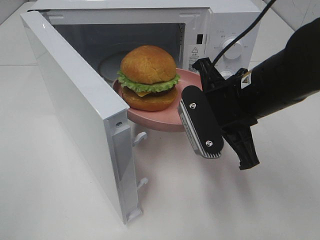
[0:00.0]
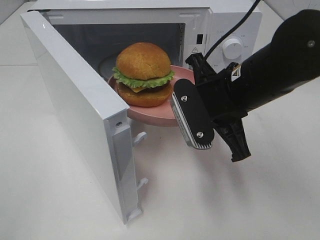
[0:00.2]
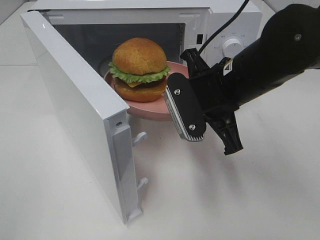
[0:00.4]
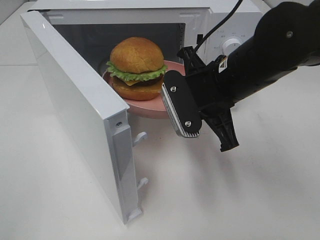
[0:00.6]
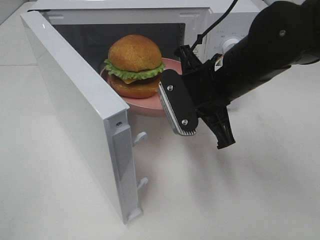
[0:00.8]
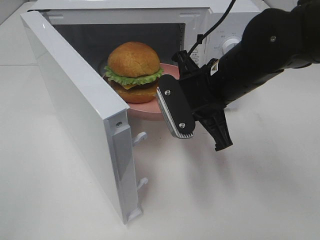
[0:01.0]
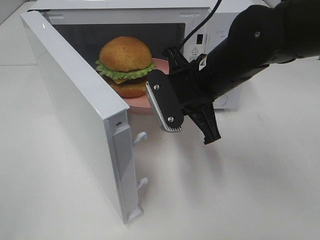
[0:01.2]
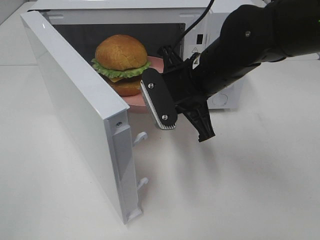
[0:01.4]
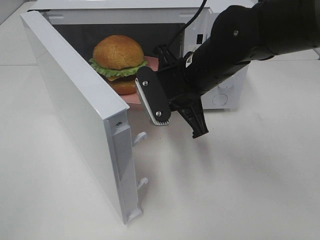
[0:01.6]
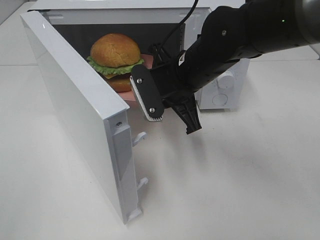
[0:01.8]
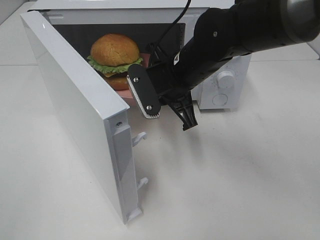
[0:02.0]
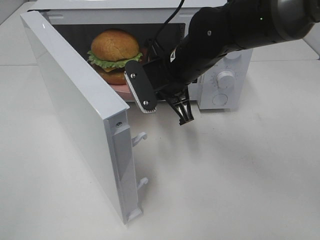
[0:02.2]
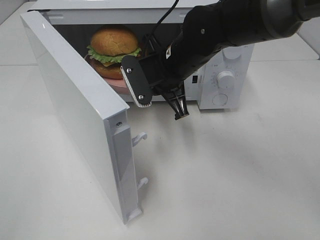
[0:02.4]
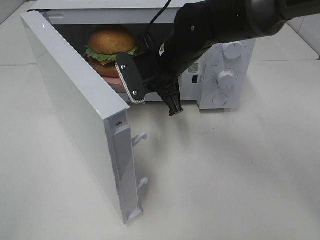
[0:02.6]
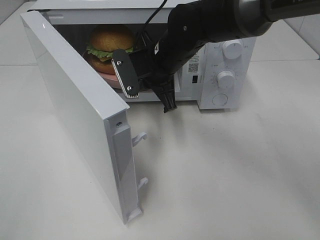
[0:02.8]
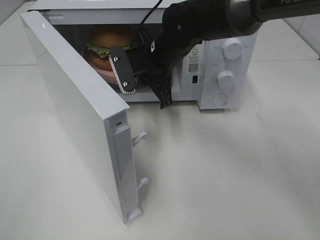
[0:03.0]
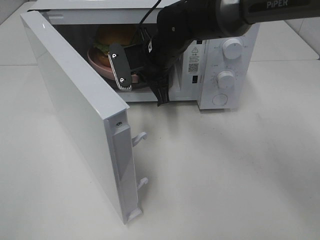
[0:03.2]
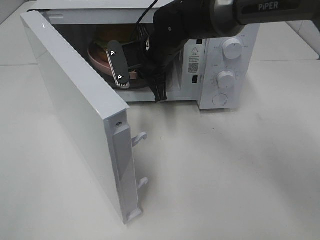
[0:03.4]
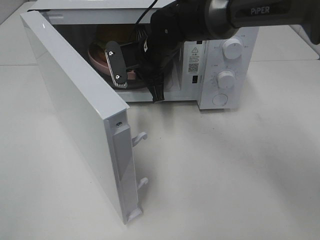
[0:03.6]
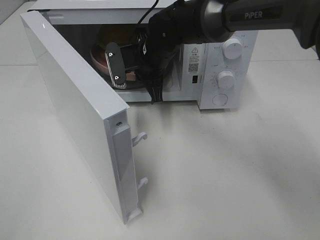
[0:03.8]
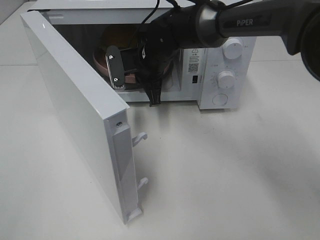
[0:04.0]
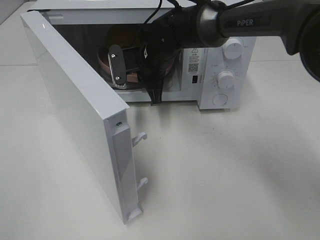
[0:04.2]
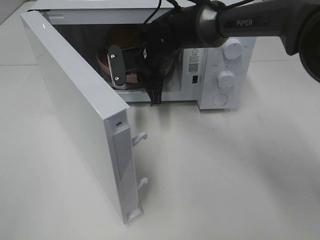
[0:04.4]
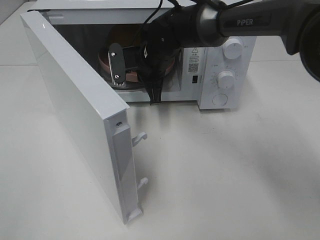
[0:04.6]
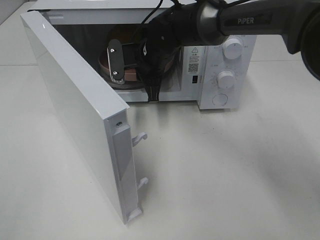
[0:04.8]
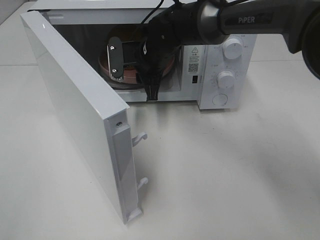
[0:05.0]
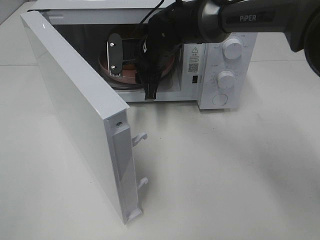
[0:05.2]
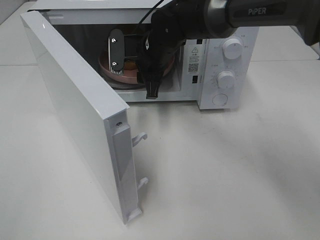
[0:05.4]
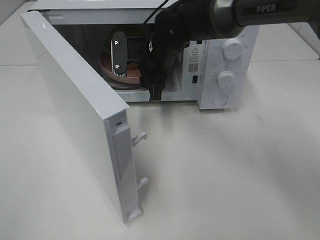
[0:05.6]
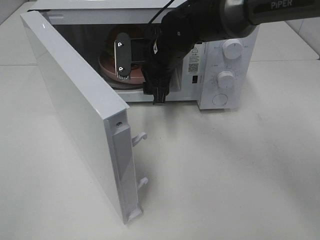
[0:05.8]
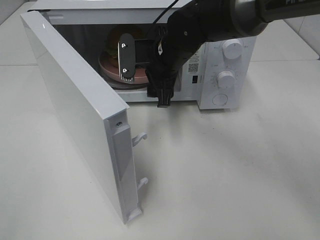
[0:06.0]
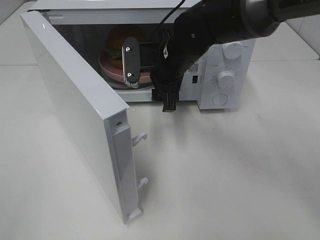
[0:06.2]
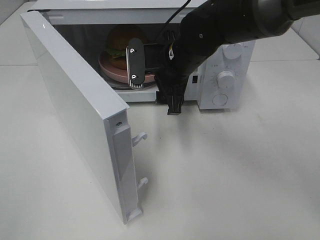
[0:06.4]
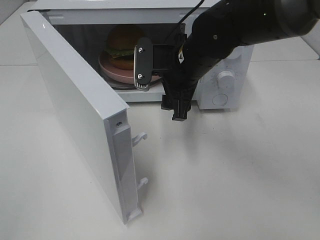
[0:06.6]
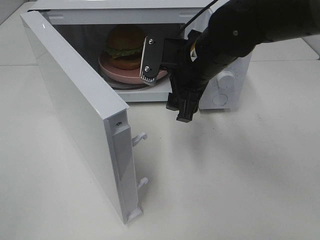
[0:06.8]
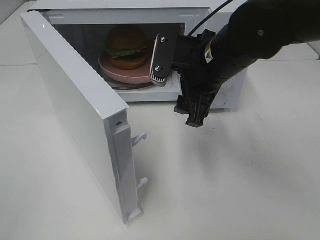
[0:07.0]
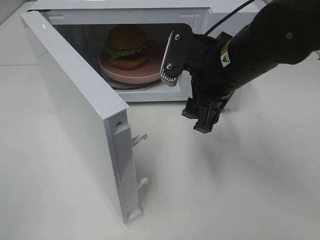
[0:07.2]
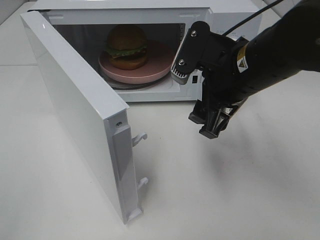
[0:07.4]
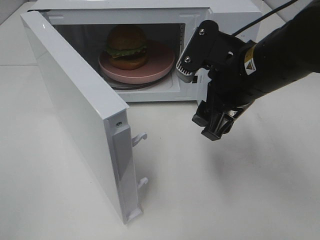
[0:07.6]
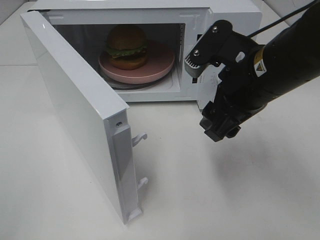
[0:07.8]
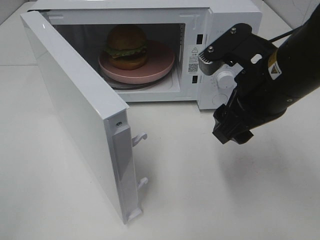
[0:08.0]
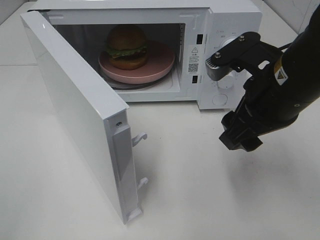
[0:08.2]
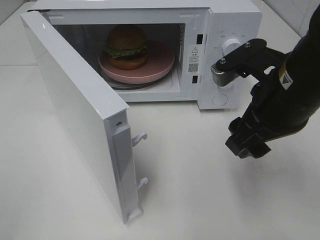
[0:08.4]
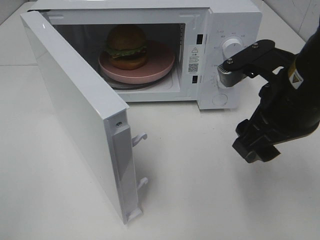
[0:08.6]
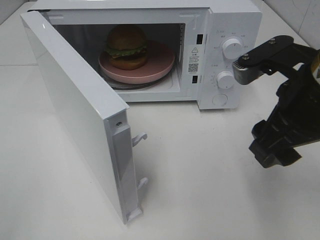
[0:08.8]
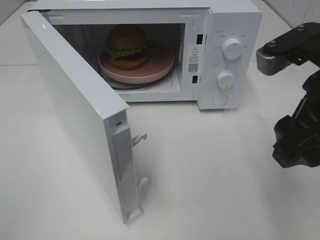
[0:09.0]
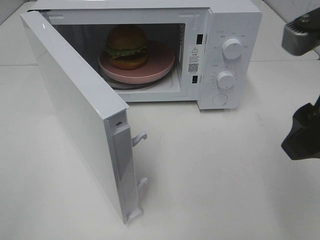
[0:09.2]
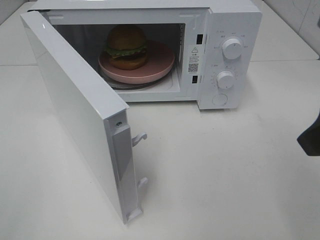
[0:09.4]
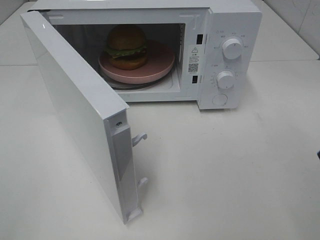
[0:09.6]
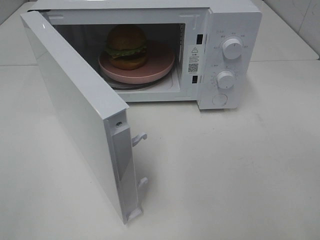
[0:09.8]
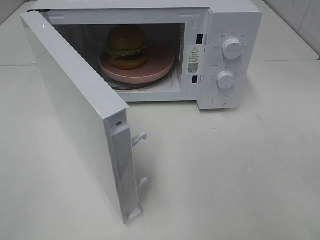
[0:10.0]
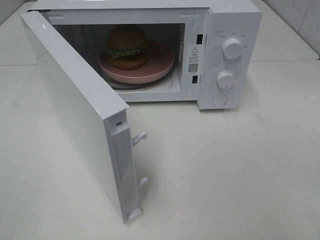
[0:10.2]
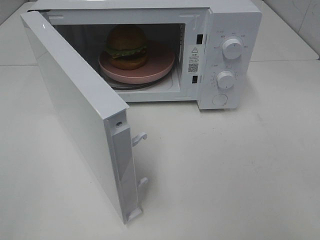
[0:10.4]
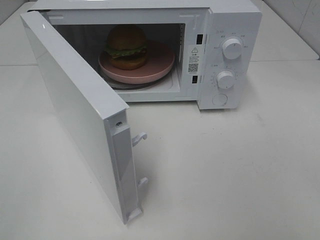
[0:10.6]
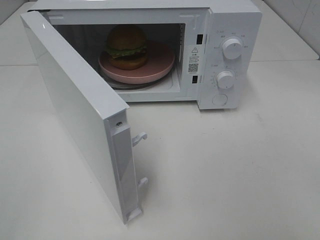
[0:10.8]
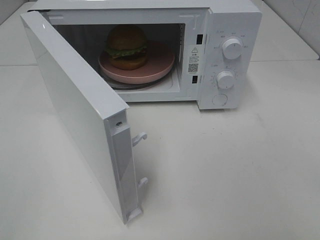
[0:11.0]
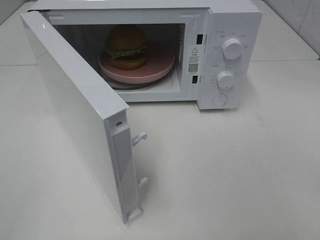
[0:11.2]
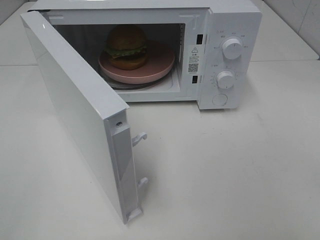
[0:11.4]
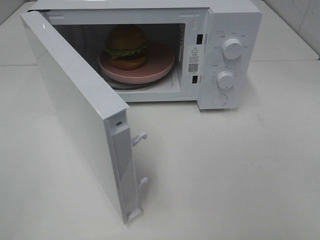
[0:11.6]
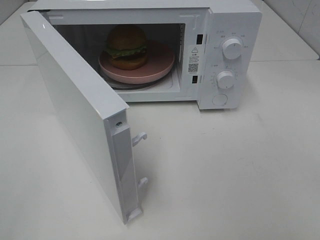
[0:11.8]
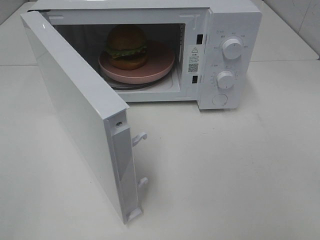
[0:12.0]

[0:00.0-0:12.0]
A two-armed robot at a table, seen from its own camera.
Task of the whole recording: Heat the burger.
Step, 0:00.0 to 0:04.6: Right hand: place the plate in the microwave.
0:00.0 to 0:01.6: The right gripper moves forward and to the left, some 10 cm.
0:01.6 to 0:03.0: The right gripper moves forward, roughly 10 cm.
0:03.0 to 0:04.4: The right gripper moves roughly 5 cm.
0:04.4 to 0:06.0: The right gripper moves some 5 cm, and opens its fingers.
0:06.0 to 0:07.6: The right gripper goes approximately 15 cm backward and to the right.
0:07.6 to 0:09.0: The right gripper shifts approximately 10 cm backward, to the right and upward.
0:09.0 to 0:10.4: The right gripper heads backward and to the right, covering roughly 15 cm.

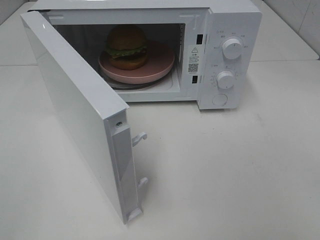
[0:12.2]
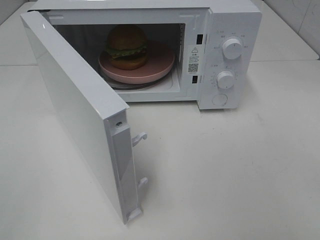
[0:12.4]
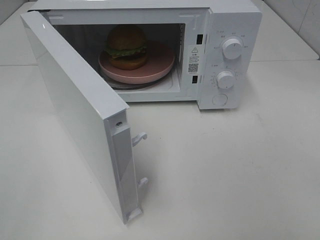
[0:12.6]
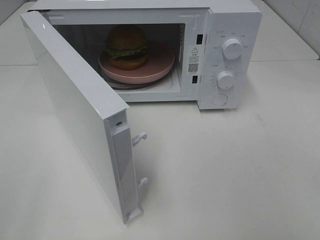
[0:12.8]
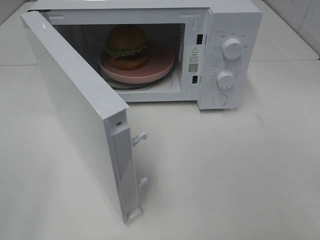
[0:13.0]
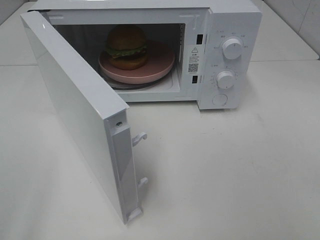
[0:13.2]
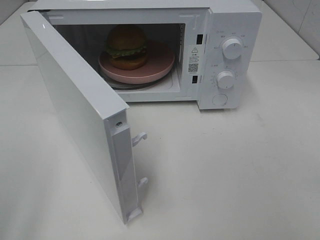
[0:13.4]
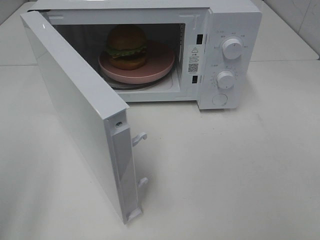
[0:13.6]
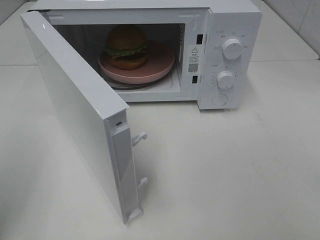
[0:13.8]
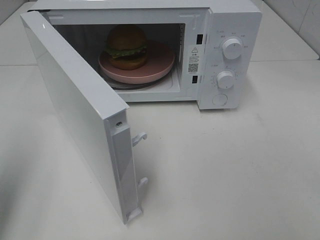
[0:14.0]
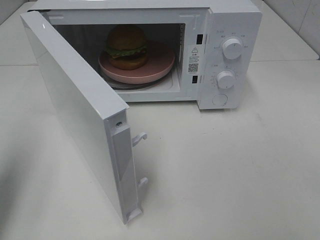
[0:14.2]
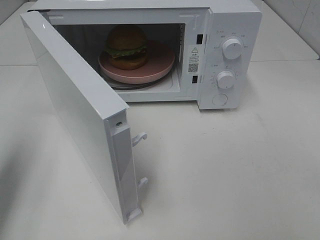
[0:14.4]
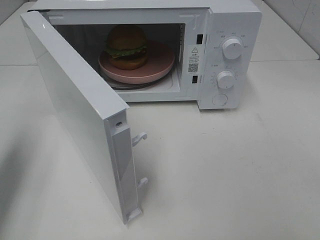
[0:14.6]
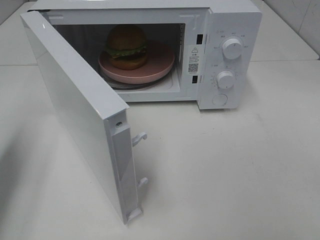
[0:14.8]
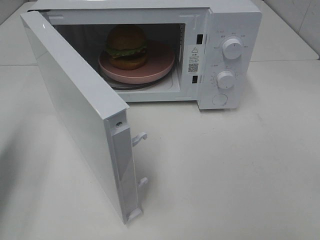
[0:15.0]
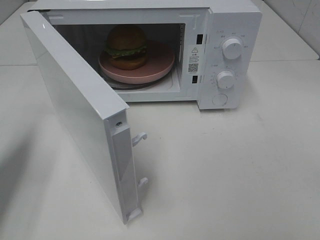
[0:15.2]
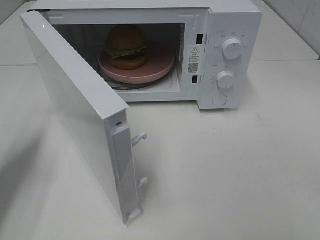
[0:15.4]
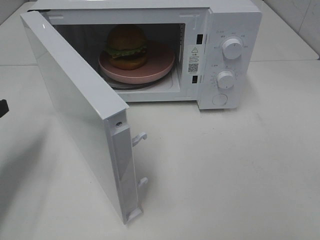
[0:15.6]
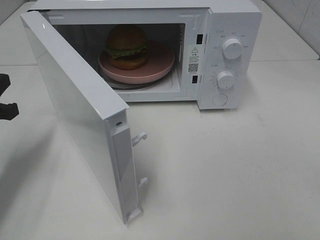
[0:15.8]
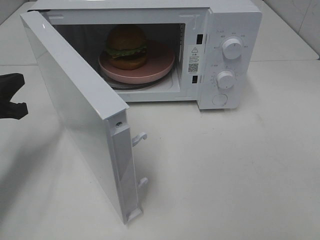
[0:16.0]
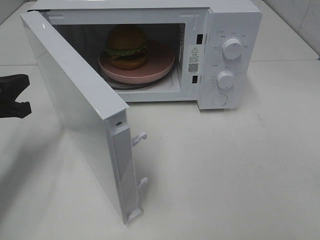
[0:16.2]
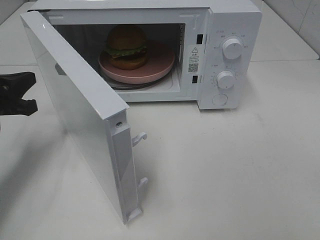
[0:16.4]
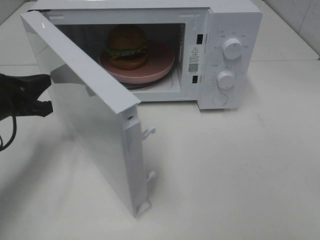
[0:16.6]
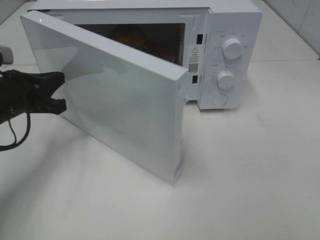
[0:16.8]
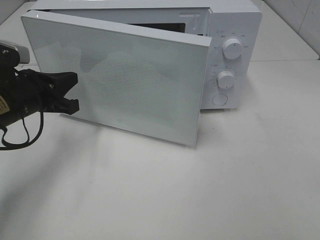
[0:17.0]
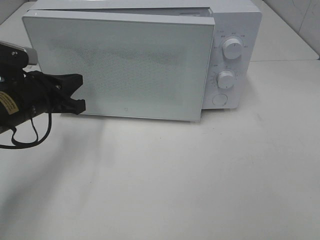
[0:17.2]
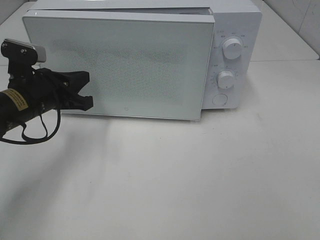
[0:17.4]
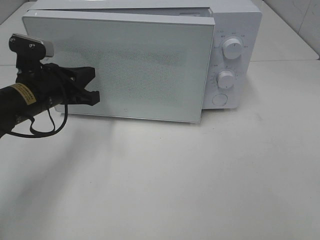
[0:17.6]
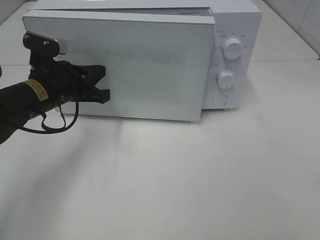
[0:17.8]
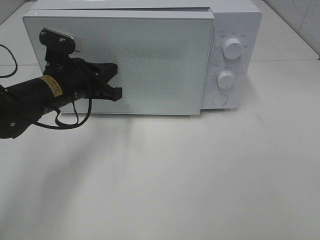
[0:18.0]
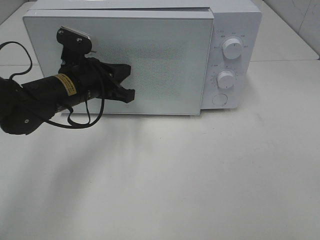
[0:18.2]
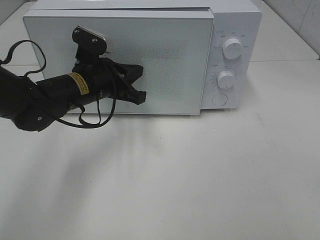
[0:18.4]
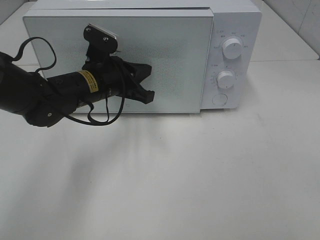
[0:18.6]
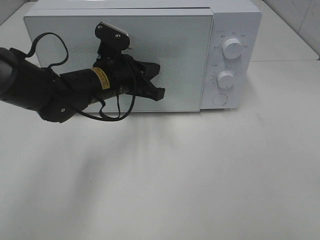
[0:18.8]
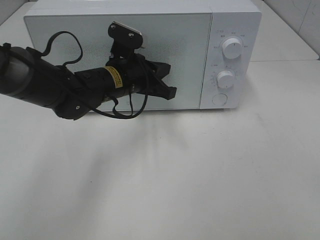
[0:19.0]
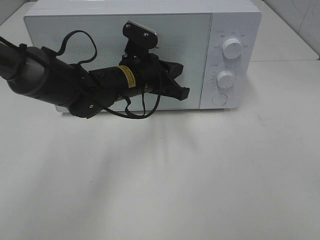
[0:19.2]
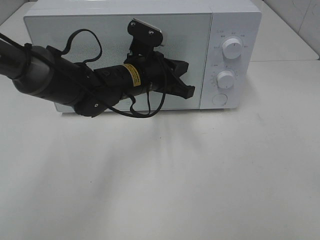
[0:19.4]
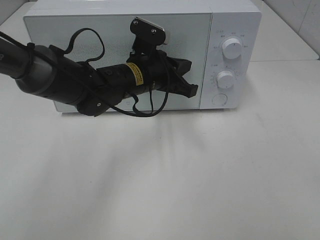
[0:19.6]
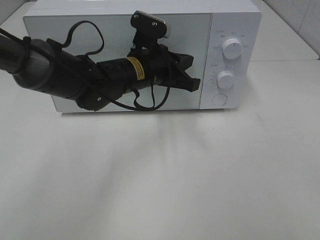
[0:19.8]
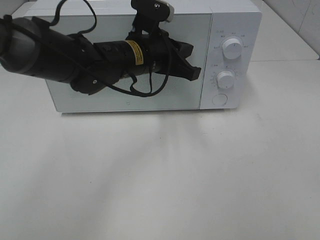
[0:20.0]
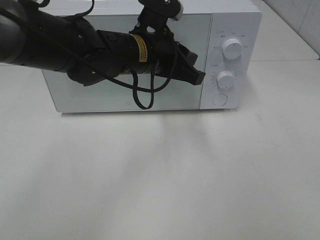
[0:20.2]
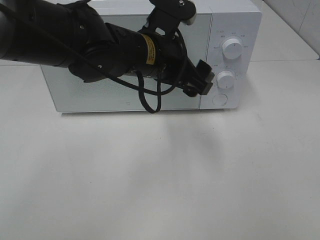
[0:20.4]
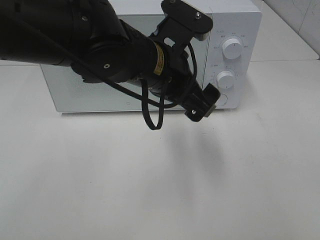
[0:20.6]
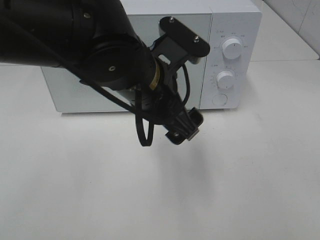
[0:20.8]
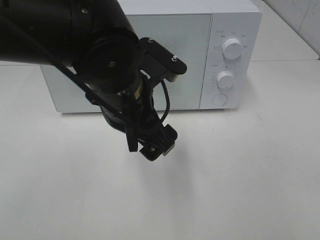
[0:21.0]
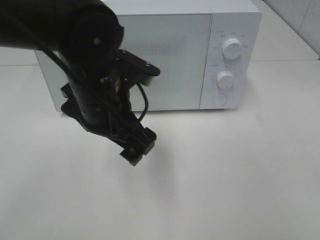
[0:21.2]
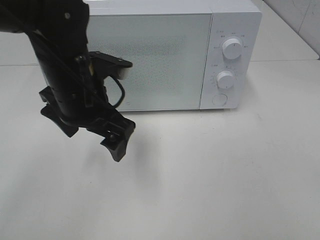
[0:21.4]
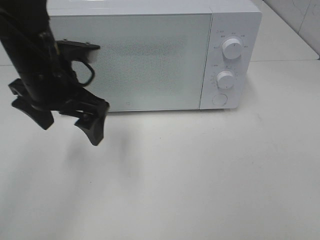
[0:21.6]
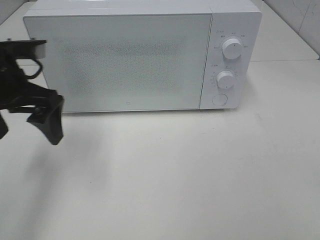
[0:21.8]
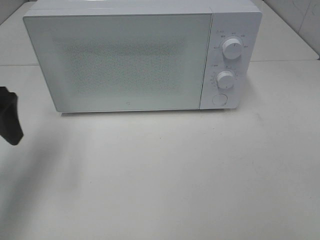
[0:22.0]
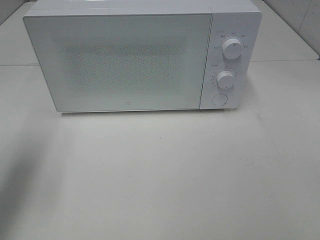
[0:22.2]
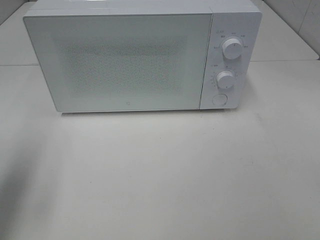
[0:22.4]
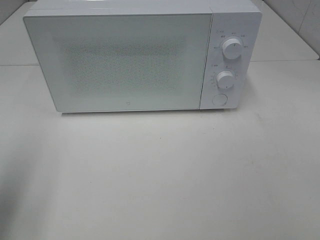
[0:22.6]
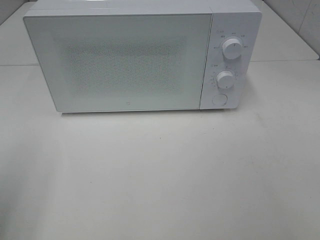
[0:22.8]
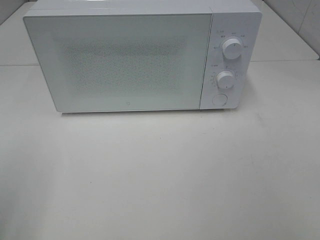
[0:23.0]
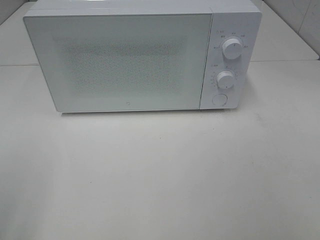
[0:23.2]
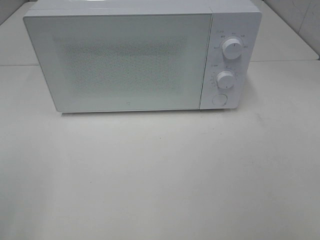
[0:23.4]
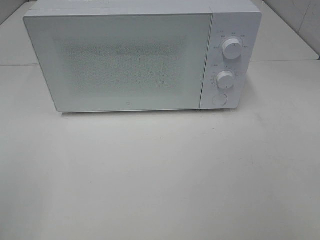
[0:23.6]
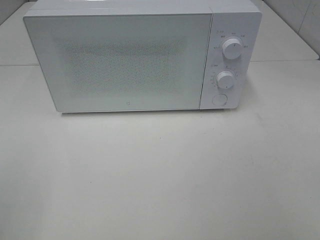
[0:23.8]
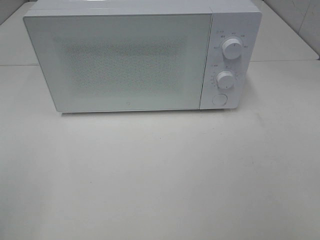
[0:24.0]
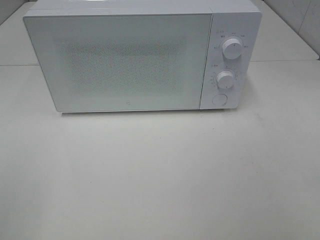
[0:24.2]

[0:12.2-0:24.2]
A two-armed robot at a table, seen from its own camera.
Task of the whole recording: Heat the burger.
Step, 0:12.2 to 0:19.0: Left hand: close the microwave door.
0:12.2 to 0:13.8: The left gripper moves forward, some 10 cm, and closes its fingers.
0:13.8 to 0:15.2: The left gripper goes some 15 cm forward and downward, and closes.
0:15.2 to 0:16.6: The left gripper moves to the right, downward and forward, about 10 cm.
0:16.6 to 0:18.2: The left gripper goes some 15 cm to the right and forward.
0:18.2 to 0:19.8: The left gripper travels to the right by roughly 10 cm.
0:19.8 to 0:21.2: The left gripper shifts some 10 cm backward, and opens up.
0:21.2 to 0:22.6: The left gripper shifts about 25 cm to the left and backward.
0:22.6 to 0:24.2: The left gripper moves backward, approximately 15 cm.
